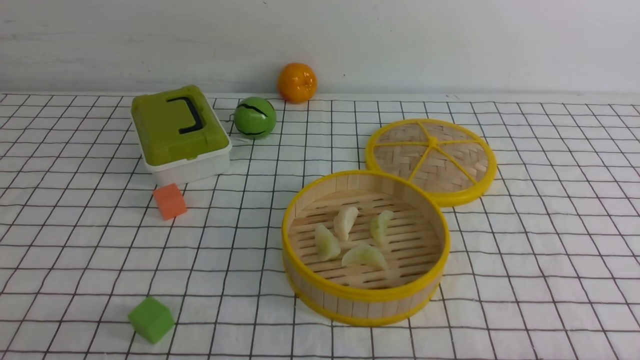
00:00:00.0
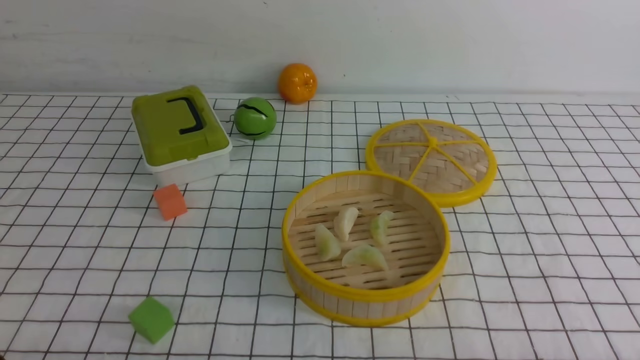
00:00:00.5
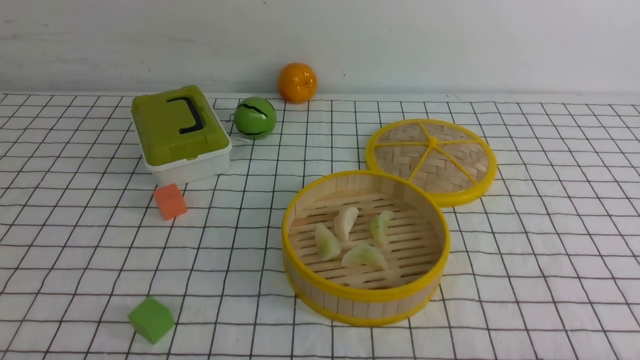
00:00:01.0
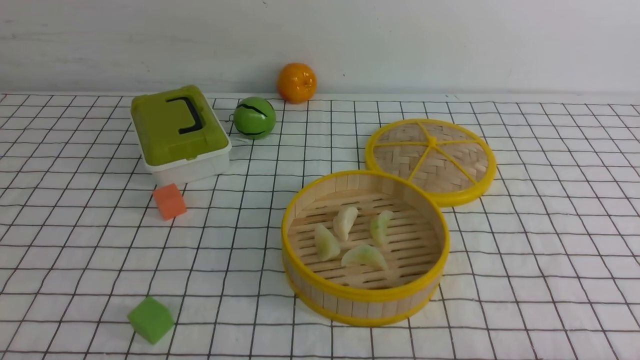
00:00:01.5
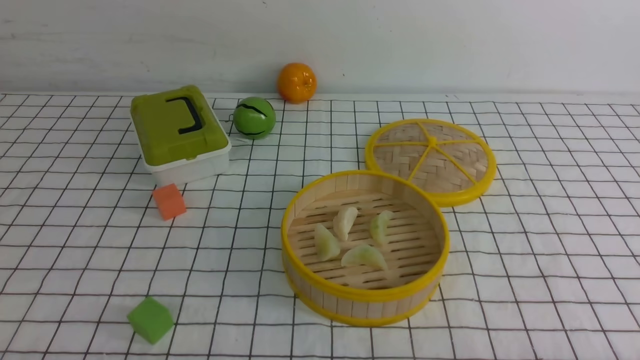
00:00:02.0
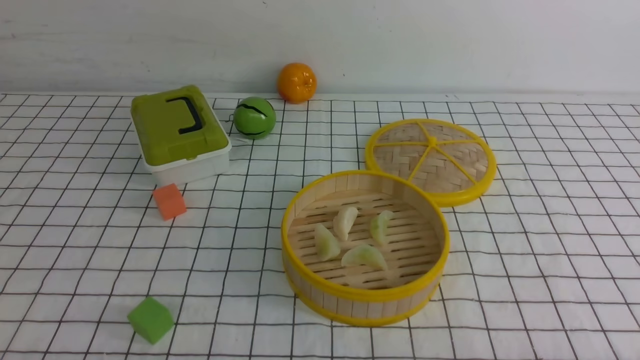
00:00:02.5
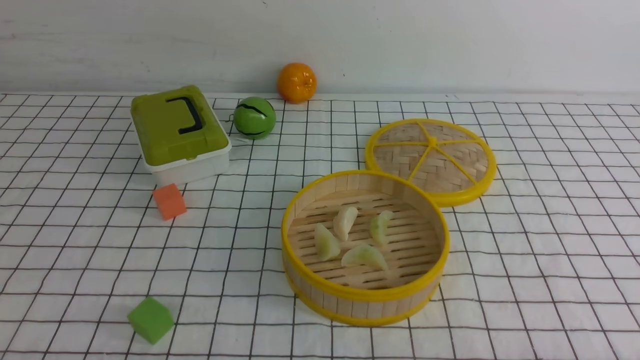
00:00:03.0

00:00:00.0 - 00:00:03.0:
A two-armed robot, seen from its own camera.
Task of the whole recording: put the dumplings into the steamer on the table with the white tablecloth.
00:00:01.5 - 00:00:03.0: The two grippers keep their place.
